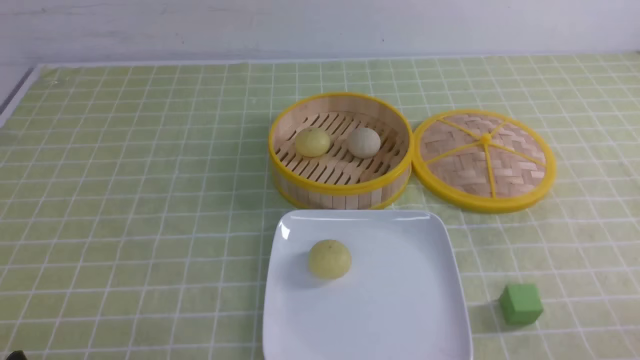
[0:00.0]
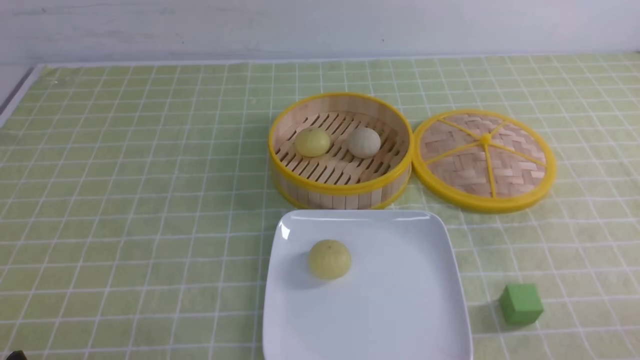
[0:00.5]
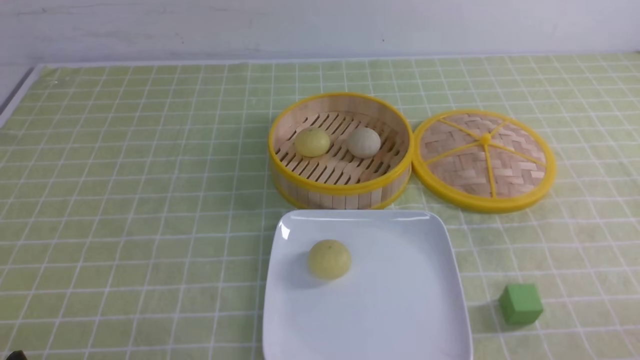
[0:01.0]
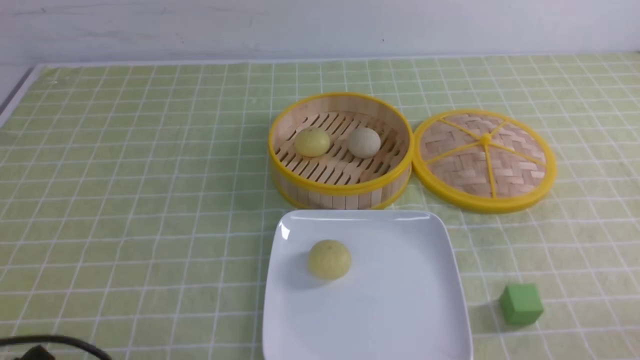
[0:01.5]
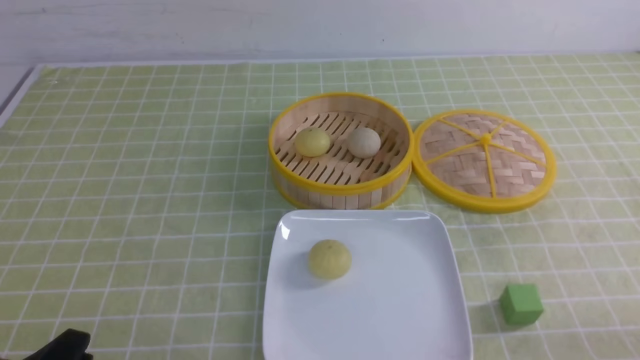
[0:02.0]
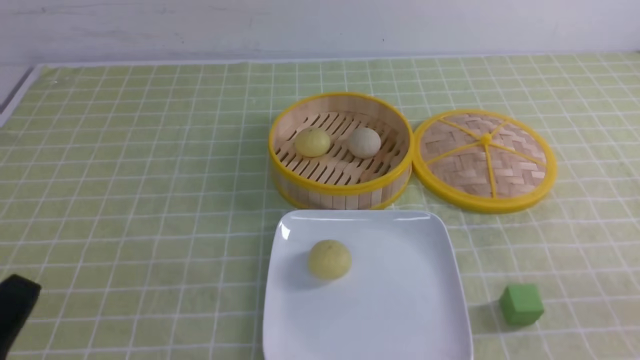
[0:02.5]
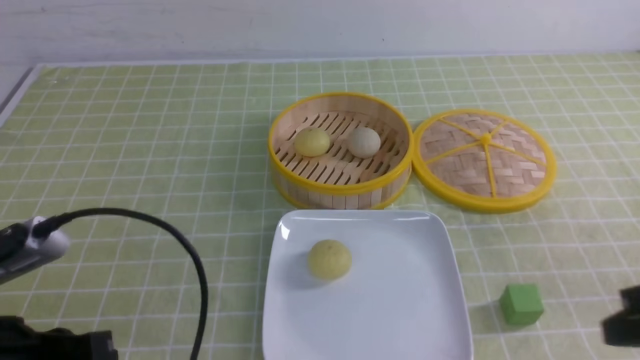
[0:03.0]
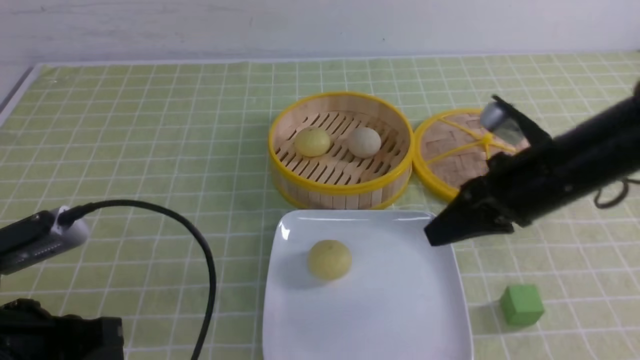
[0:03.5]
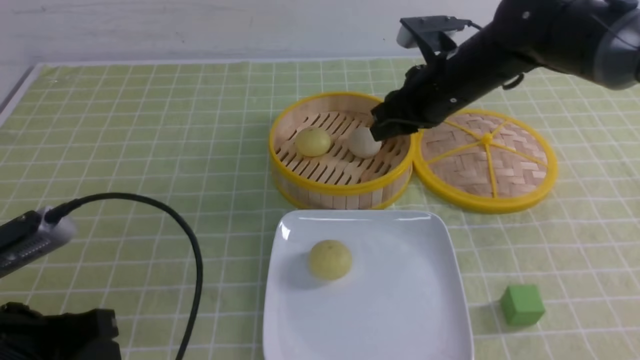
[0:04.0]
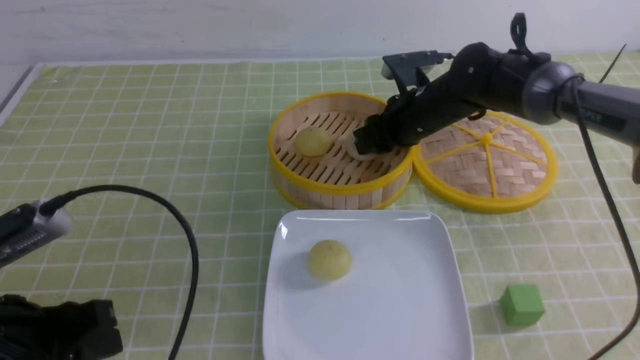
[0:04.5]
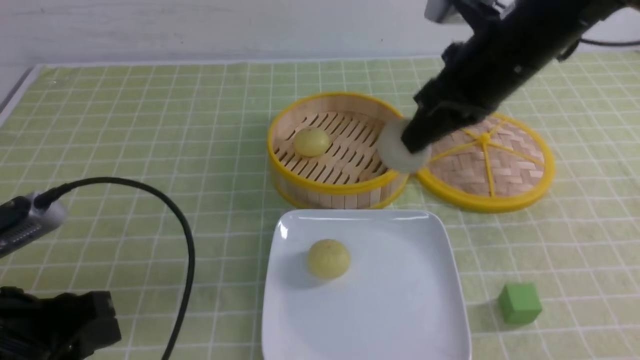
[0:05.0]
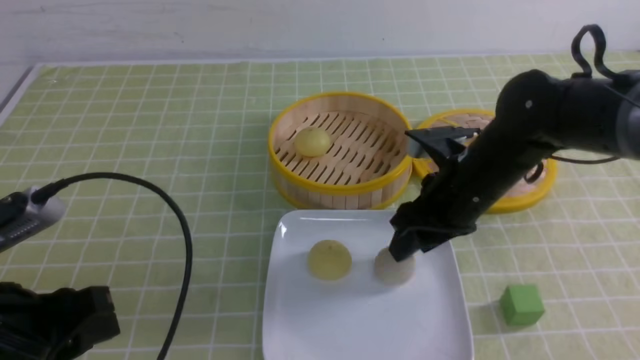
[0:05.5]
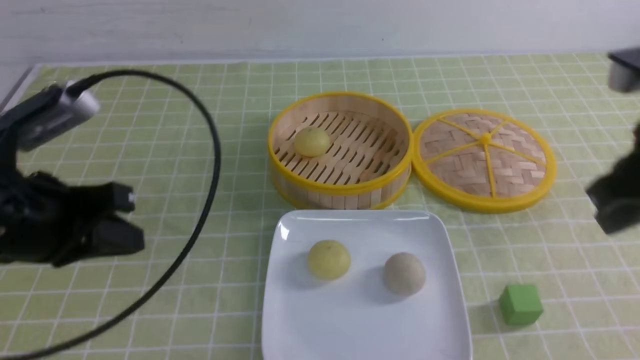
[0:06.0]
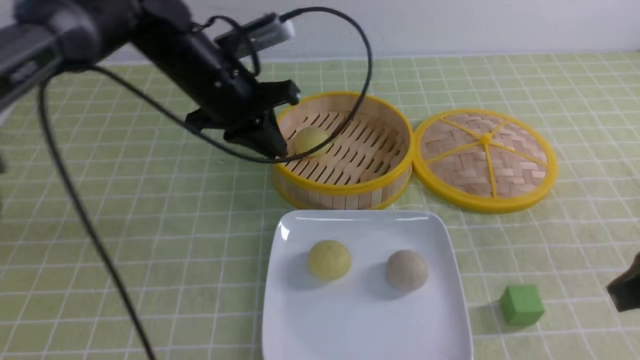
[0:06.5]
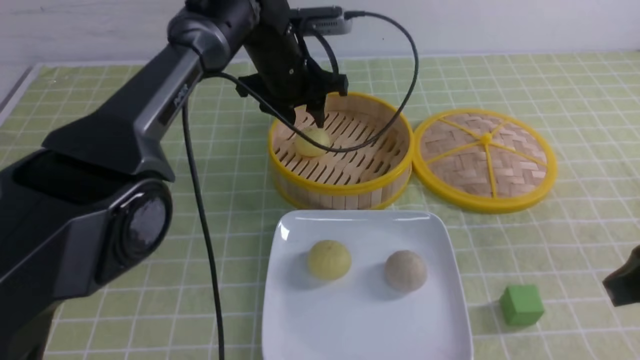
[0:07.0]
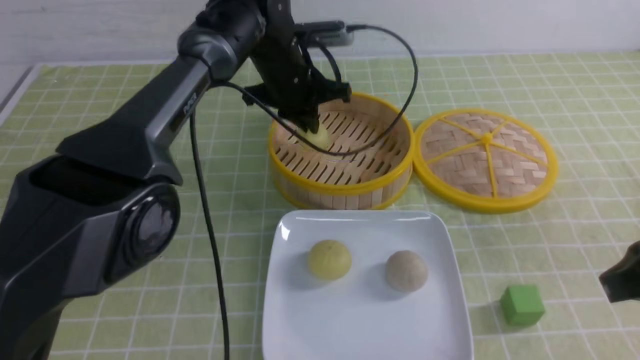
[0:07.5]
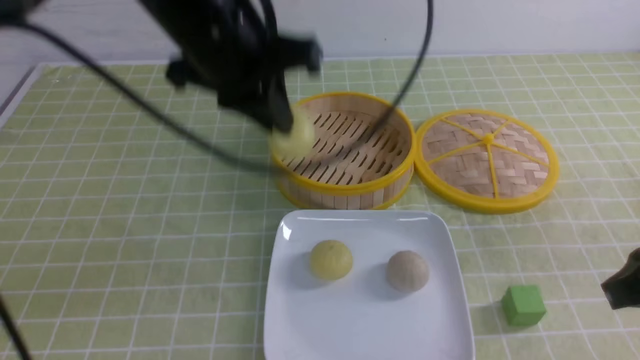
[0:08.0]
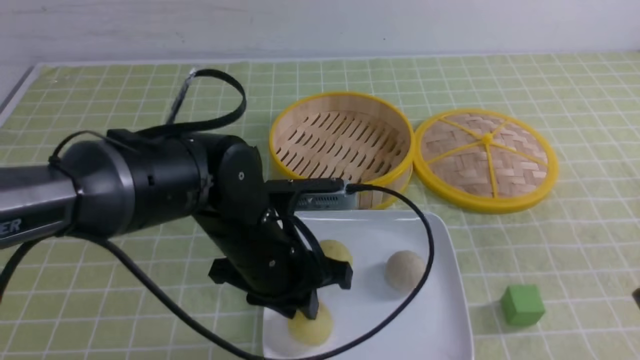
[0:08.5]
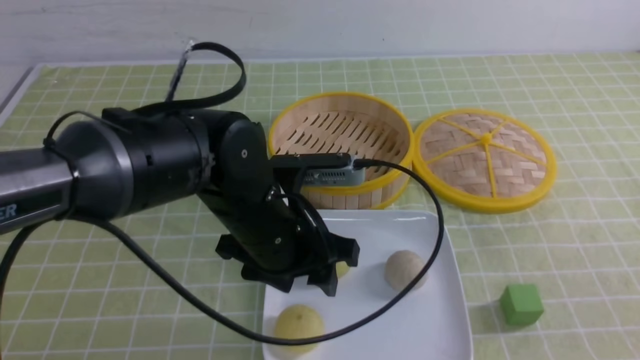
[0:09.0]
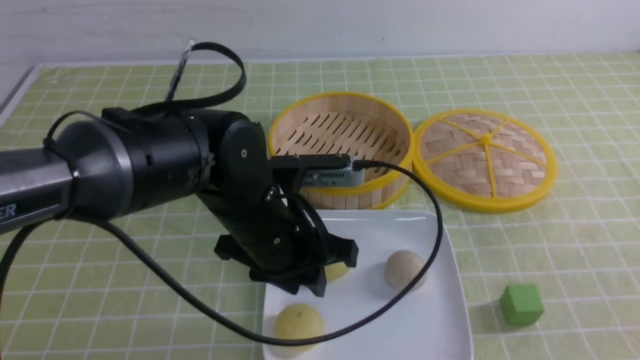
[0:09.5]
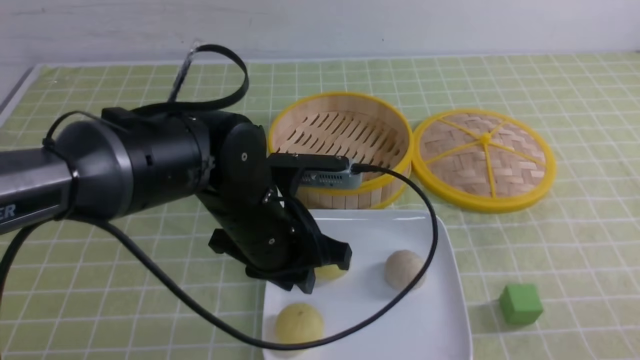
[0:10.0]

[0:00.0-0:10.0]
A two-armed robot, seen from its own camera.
Step, 0:00.0 to 0:04.5: use the right arm to grab the steamed stuffed bun that is closest to it.
Step, 0:06.0 to 0:07.0: use the left arm to grab the steamed stuffed bun that is closest to it.
Step, 0:07.5 to 0:08.5: use the left arm to put the steamed stuffed bun into the plate.
0:02.0 to 0:04.0: The left gripper goes about 10 cm forward and upward, and closes and opens again. The right gripper travels forward and to the left by approximately 40 cm, and closes and opens again.
0:04.0 to 0:06.0: The right gripper travels backward and to the right by roughly 20 cm, and closes. Meanwhile the left gripper shifts about 10 cm forward and upward, and closes.
0:06.0 to 0:08.0: The right gripper moves backward, about 5 cm, while the left gripper travels to the right and forward by some 20 cm, and opens, then closes once more.
0:08.0 to 0:10.0: The right gripper travels backward and downward by approximately 15 cm; the left gripper shifts roughly 15 cm downward and backward, and opens up.

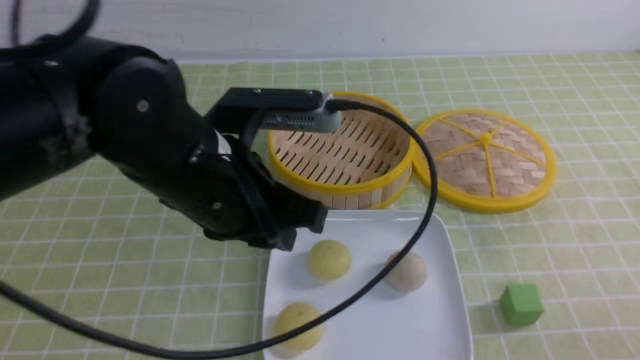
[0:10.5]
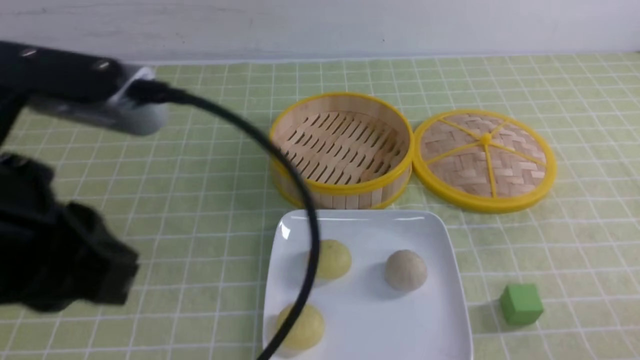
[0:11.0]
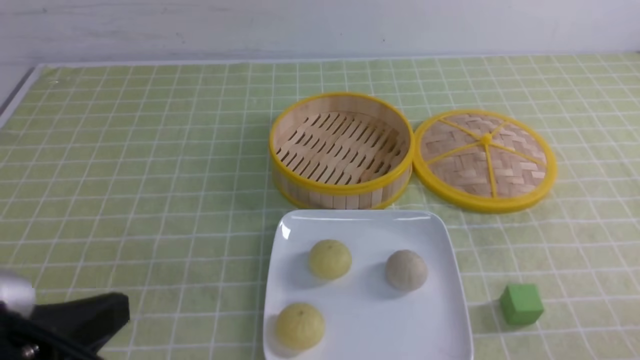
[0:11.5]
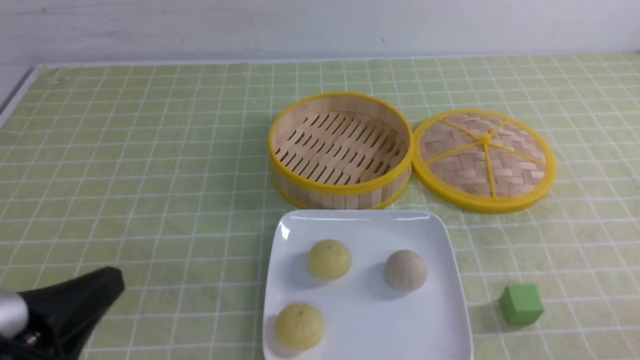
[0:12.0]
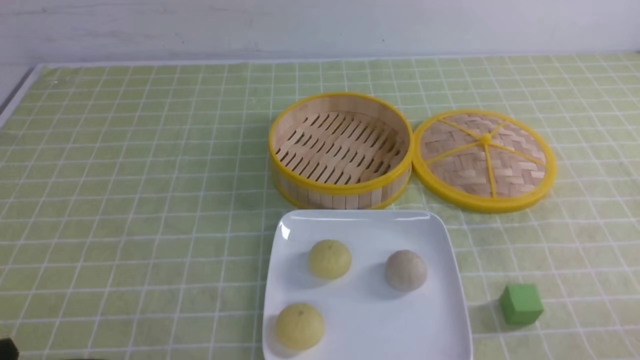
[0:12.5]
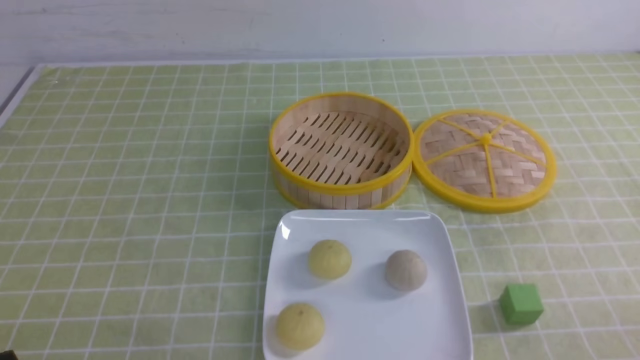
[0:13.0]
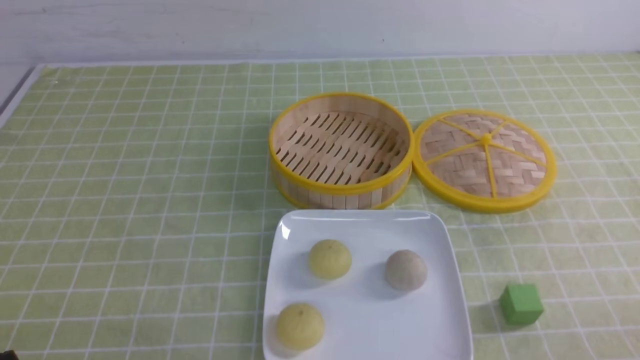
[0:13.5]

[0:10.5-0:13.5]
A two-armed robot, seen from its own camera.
0:10.5 to 0:12.0: The left gripper moves backward and to the left, approximately 20 cm, and closes up.
0:12.0 to 0:13.5: The left gripper is displaced downward by approximately 10 cm.

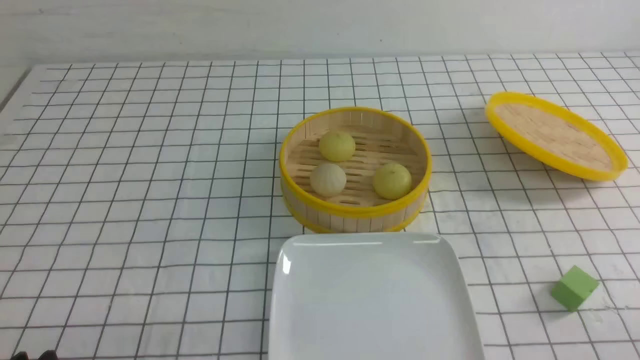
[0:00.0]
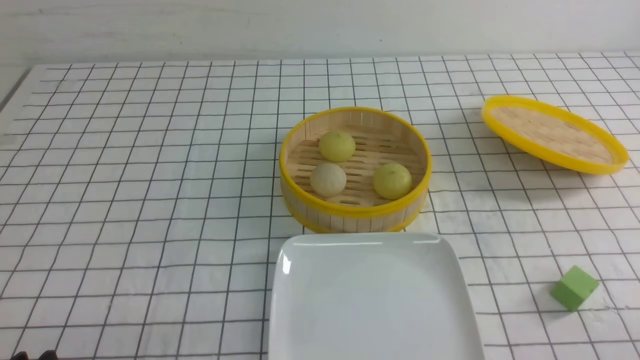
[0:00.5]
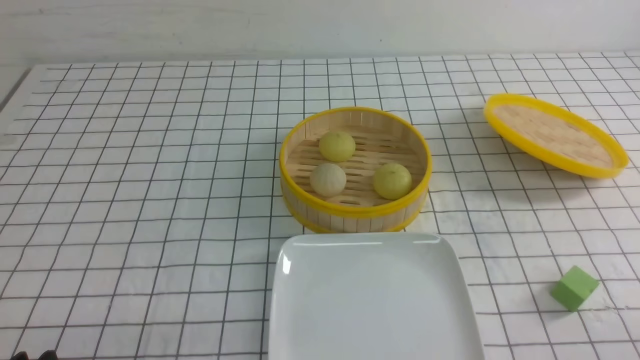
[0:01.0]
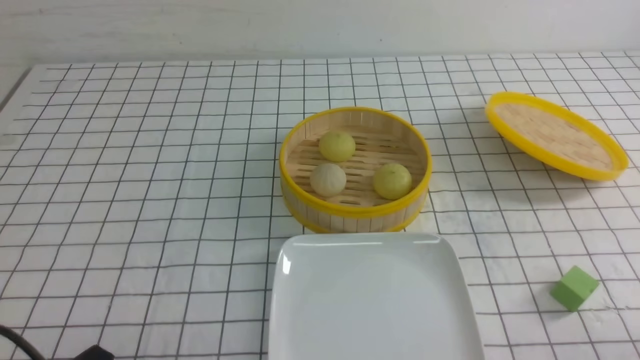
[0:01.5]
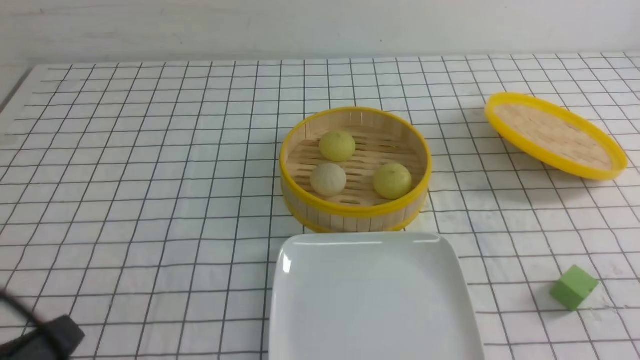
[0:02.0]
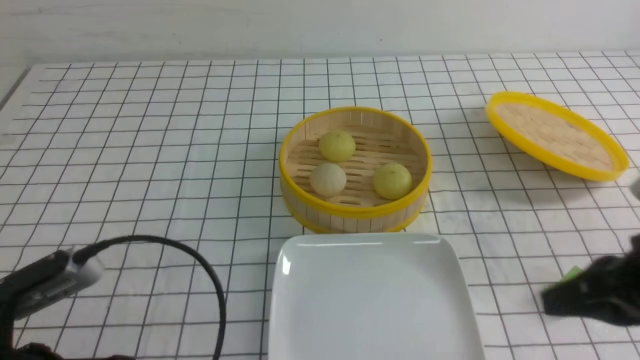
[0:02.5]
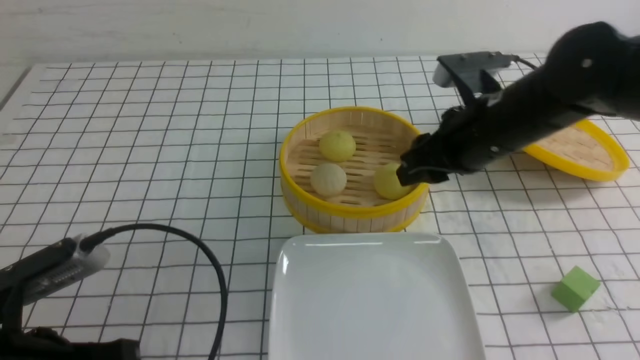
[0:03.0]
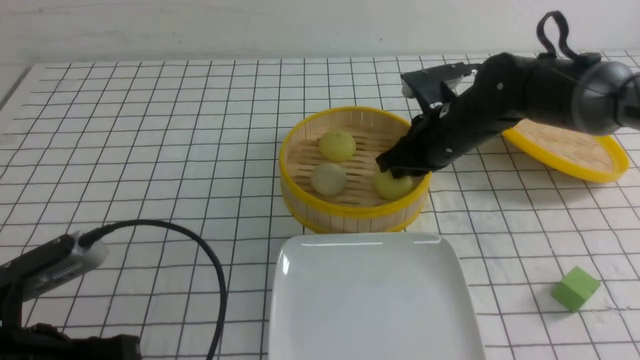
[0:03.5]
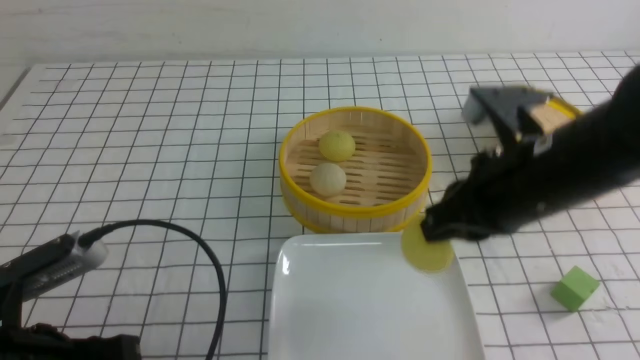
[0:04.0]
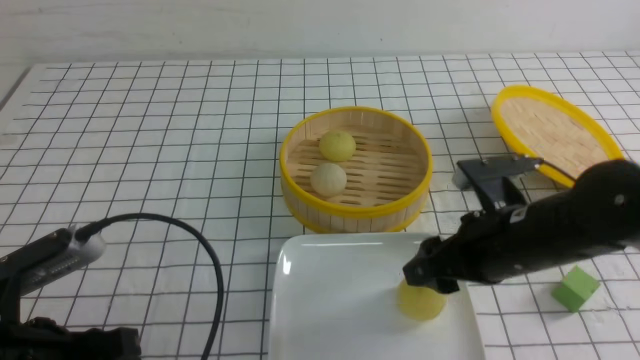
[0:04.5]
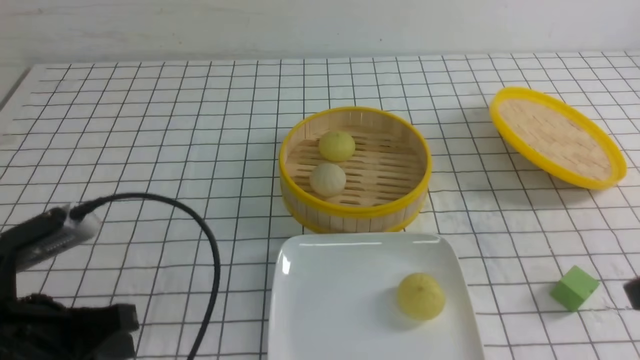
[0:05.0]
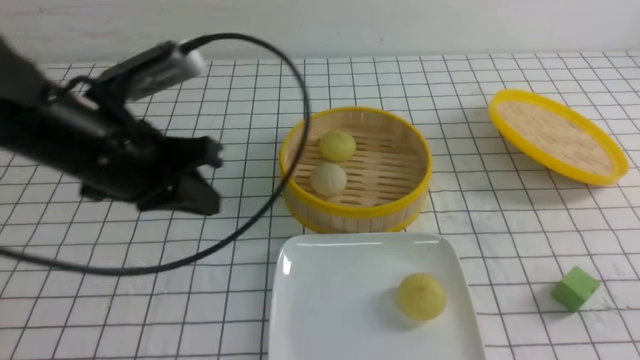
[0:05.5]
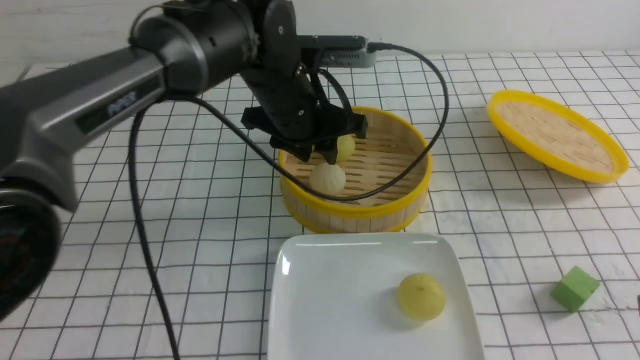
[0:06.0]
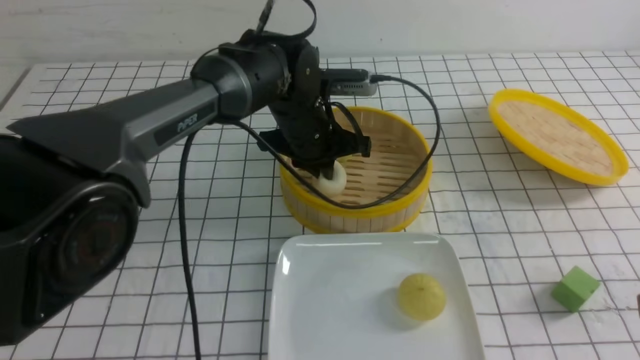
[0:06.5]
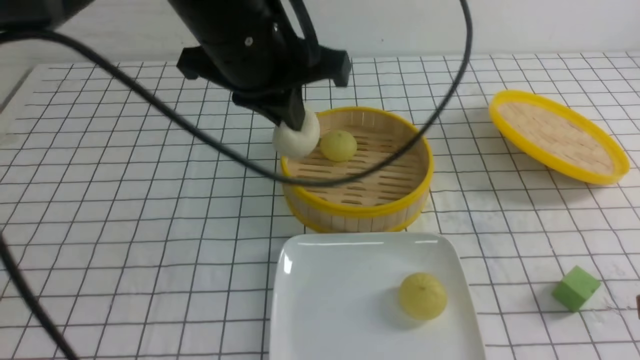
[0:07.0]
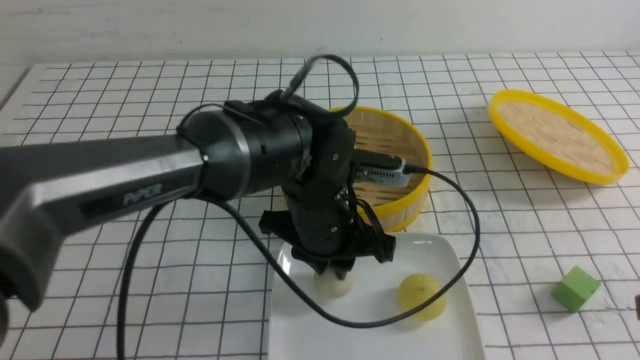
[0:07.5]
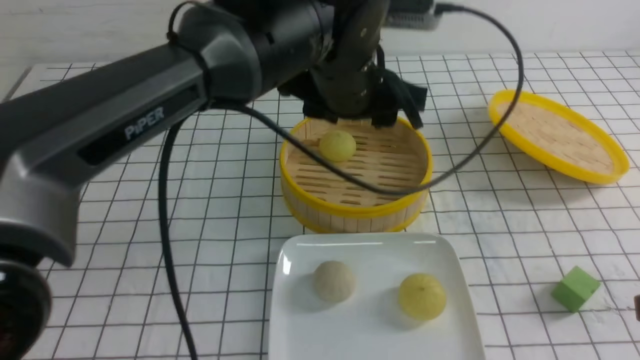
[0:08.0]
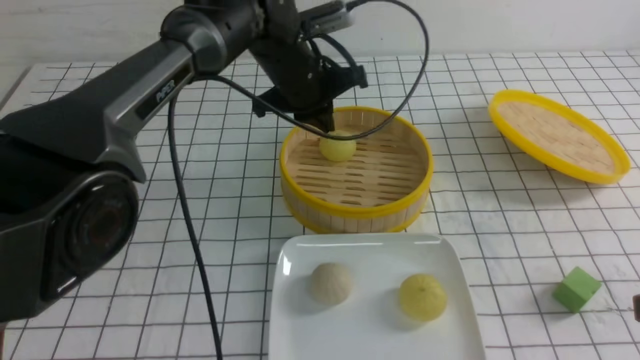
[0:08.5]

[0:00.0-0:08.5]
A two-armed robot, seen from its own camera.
Step, 0:00.0 to 0:03.5: use the right arm to grab the steamed stuffed bun that is closest to it.
Step, 0:04.0 to 0:04.5: use the right arm to put the steamed stuffed bun into the plate.
Step, 0:05.0 to 0:06.5: use the left arm to grab the steamed stuffed bun that is closest to it.
Step, 0:07.0 to 0:07.5: use the left arm to put the steamed stuffed bun into the plate.
0:00.0 to 0:02.0: The left gripper heads upward, covering approximately 10 cm, and closes.
0:02.0 to 0:04.0: The right gripper travels forward and to the left by some 25 cm, and opens and closes again. The left gripper shifts roughly 5 cm forward, and opens.
0:04.0 to 0:06.5: The right gripper travels backward and to the right by approximately 20 cm, and opens and closes again. Meanwhile the left gripper moves forward and to the right, some 35 cm.
0:06.5 to 0:08.5: The left gripper goes backward and returns, approximately 10 cm each way, and opens, then closes again.
